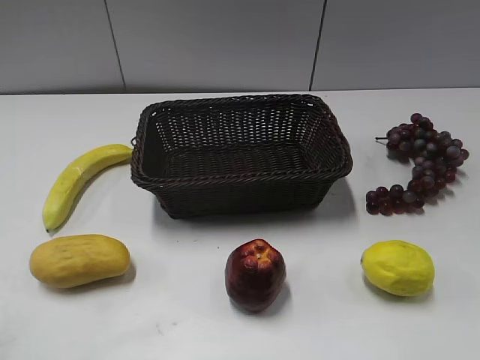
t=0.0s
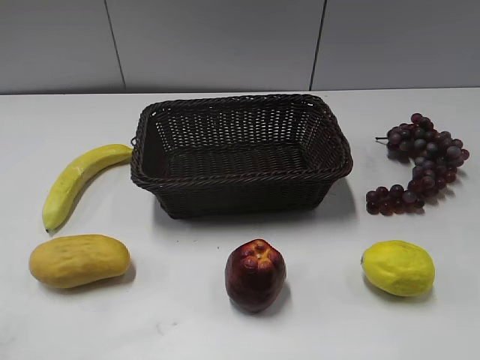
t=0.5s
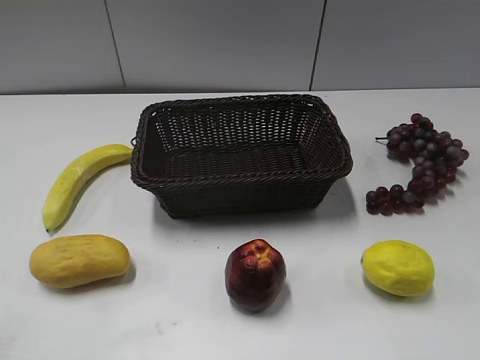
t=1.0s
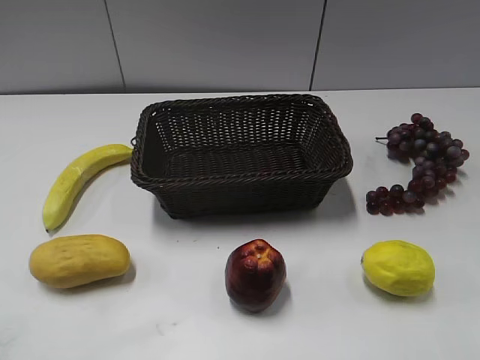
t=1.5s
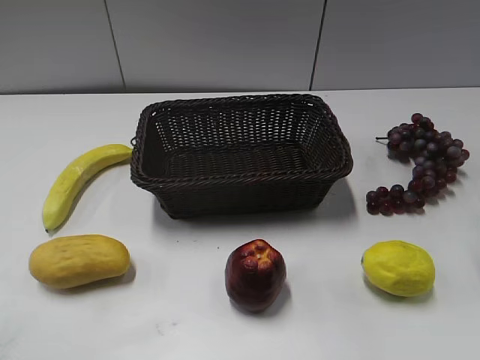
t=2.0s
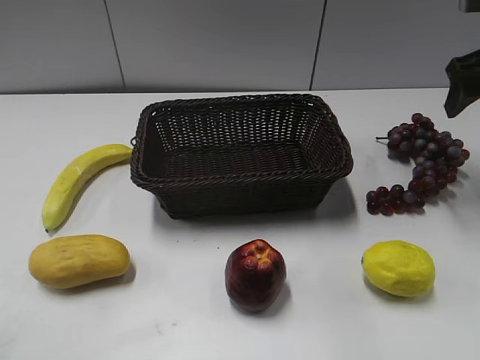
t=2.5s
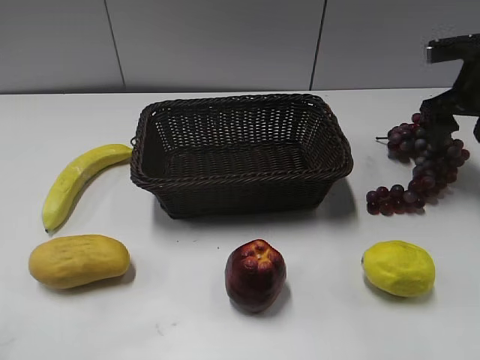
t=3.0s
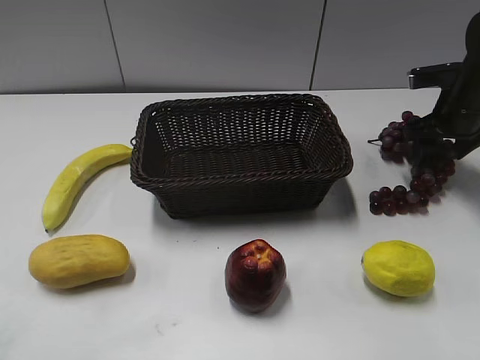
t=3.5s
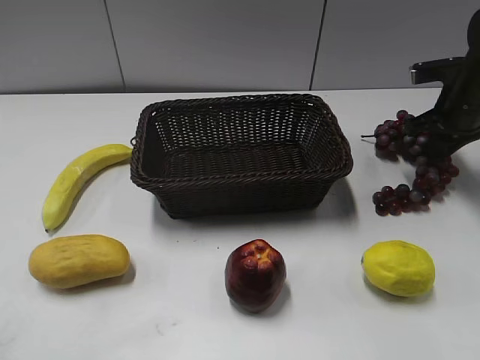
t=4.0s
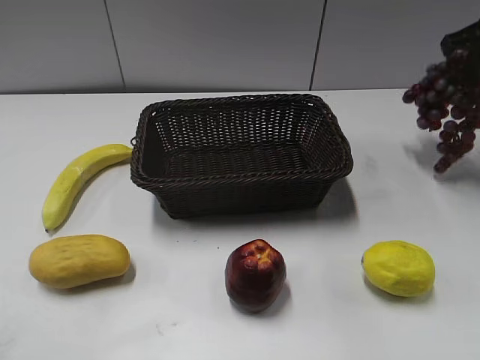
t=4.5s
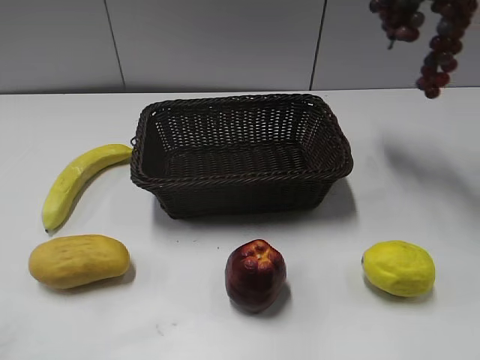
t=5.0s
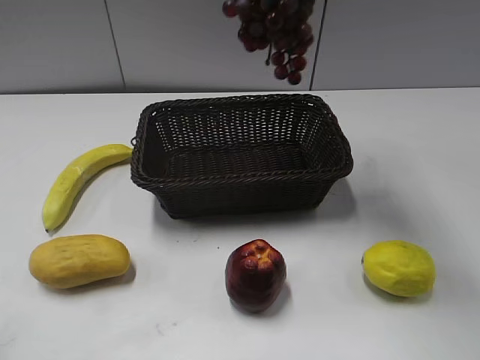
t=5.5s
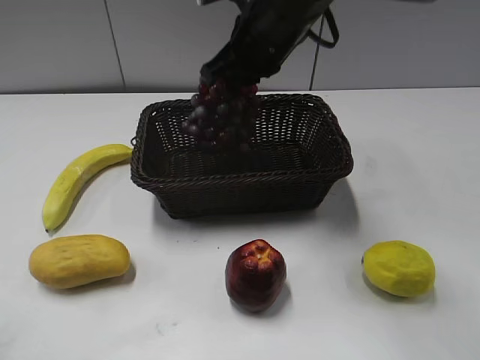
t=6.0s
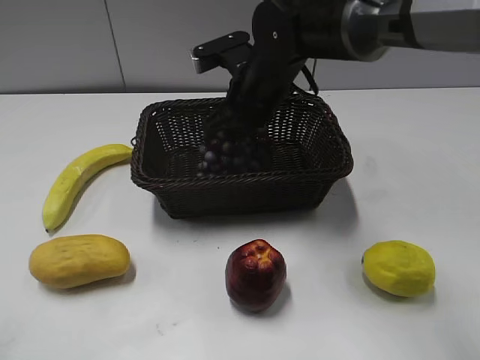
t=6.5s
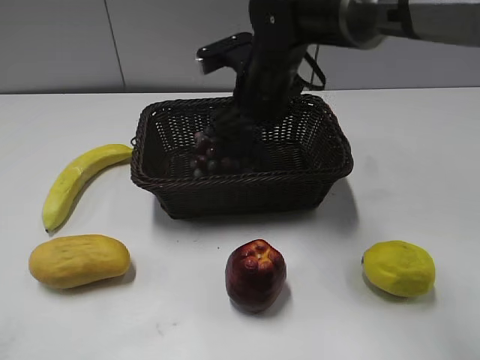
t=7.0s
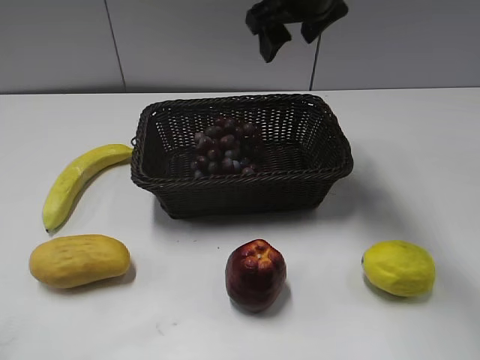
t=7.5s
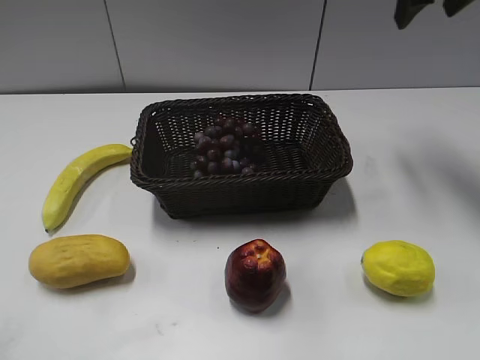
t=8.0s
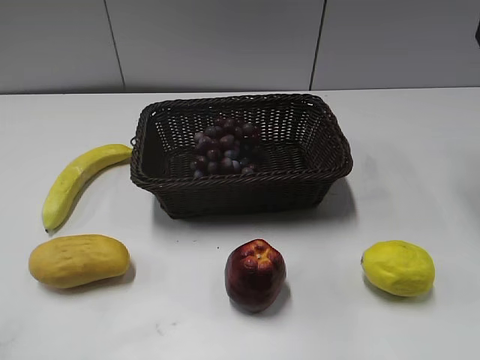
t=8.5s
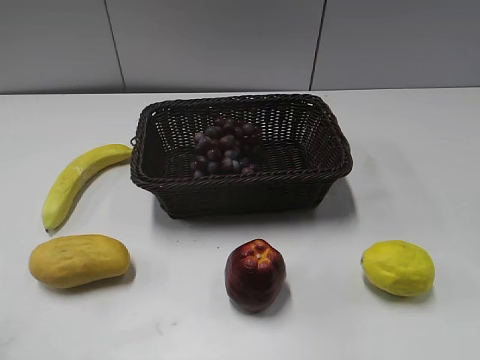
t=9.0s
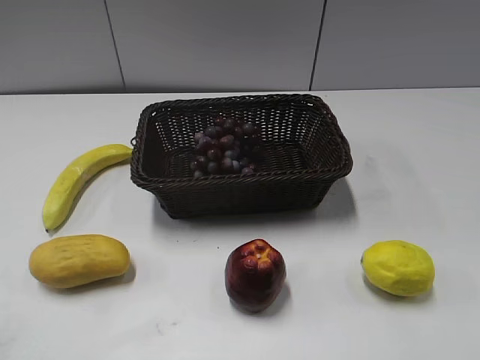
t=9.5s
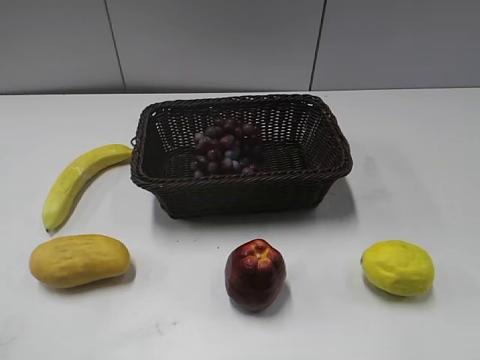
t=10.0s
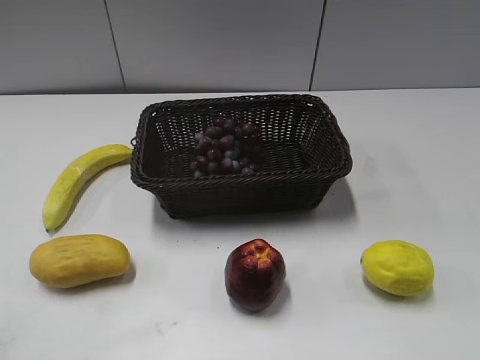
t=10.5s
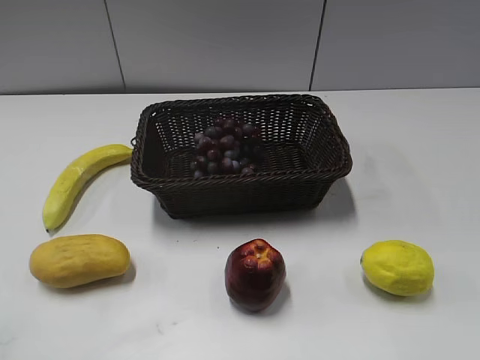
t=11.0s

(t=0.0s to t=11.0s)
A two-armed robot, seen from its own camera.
Step, t=2.5s - t=3.5s: Grasp the grape with right gripper.
Step, t=4.0s - t=6.5s: Place the grape in the basket with right gripper.
t=2.0s - t=3.5s: The right gripper heads forward and downward, covering approximately 25 cm.
t=3.5s - t=5.5s: The right gripper goes roughly 30 cm upward and to the left, and closes.
t=5.5s - t=7.5s: The right gripper heads downward and forward, covering some 10 cm, and opens its fingers.
t=7.5s - t=9.0s: The right gripper is displaced to the right and backward by roughly 25 cm.
